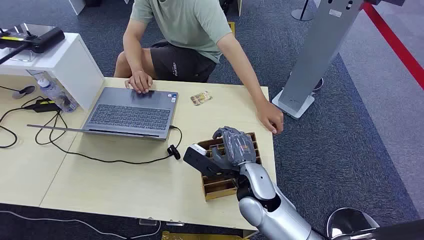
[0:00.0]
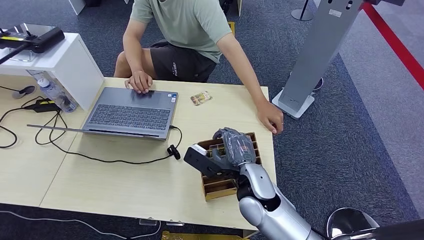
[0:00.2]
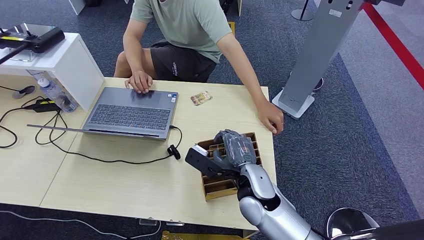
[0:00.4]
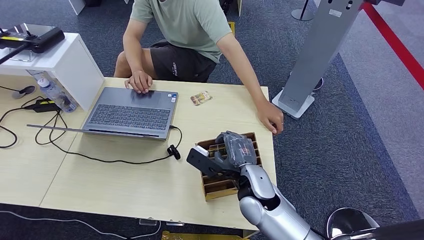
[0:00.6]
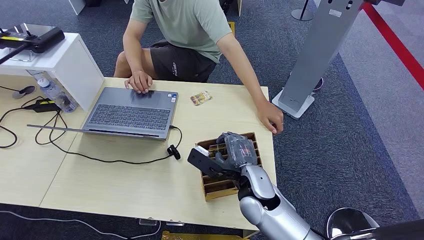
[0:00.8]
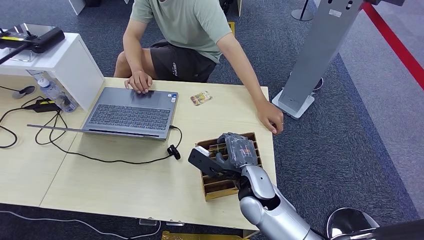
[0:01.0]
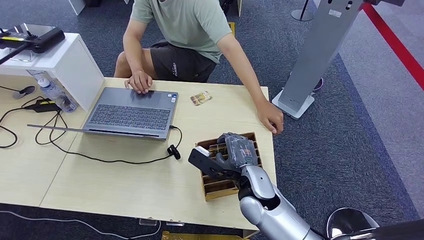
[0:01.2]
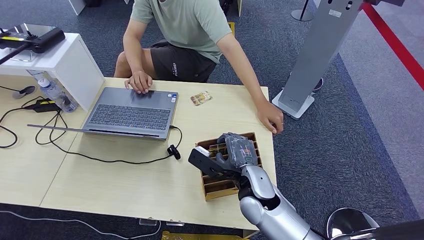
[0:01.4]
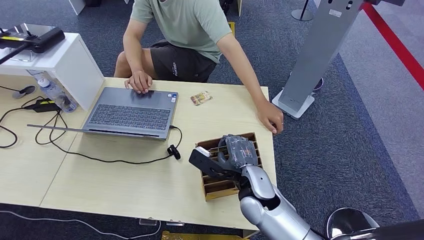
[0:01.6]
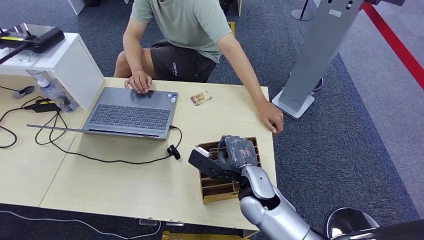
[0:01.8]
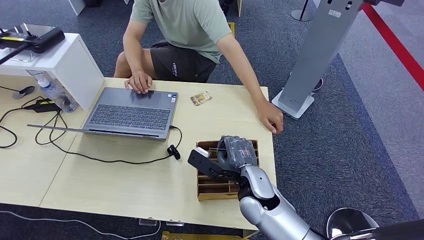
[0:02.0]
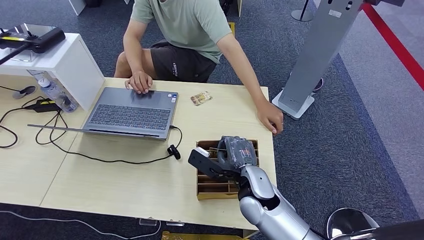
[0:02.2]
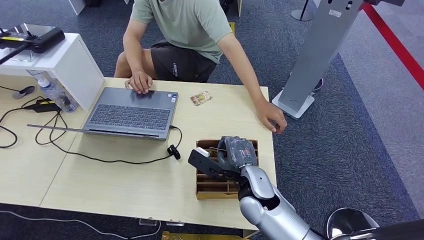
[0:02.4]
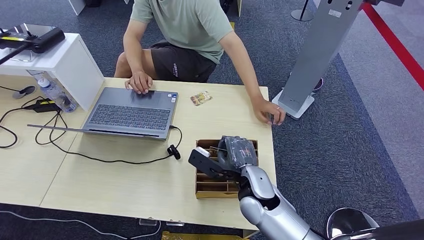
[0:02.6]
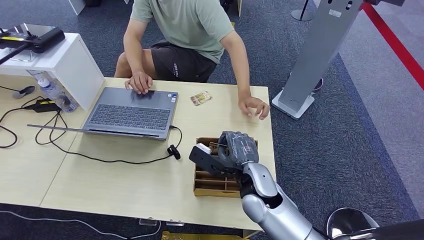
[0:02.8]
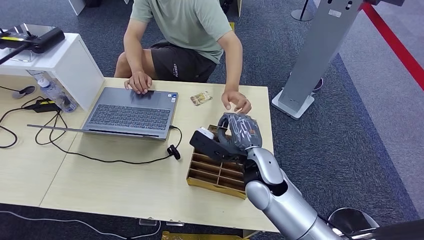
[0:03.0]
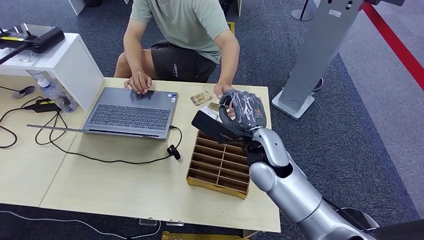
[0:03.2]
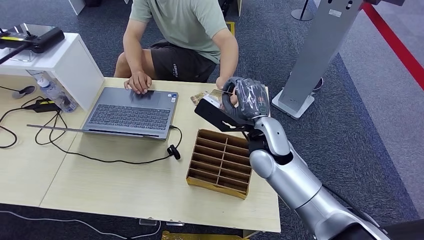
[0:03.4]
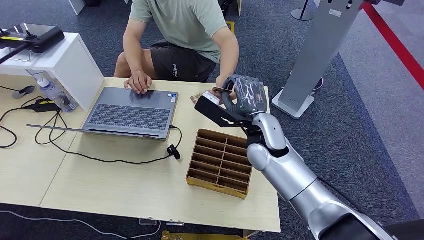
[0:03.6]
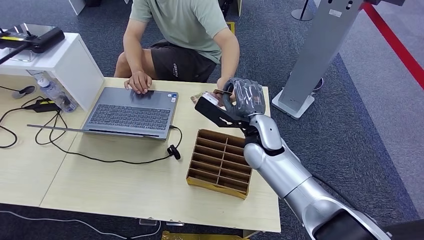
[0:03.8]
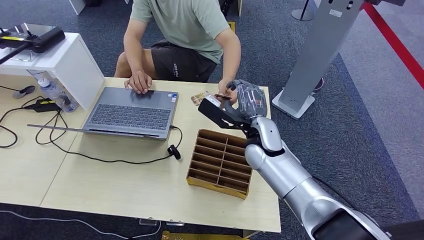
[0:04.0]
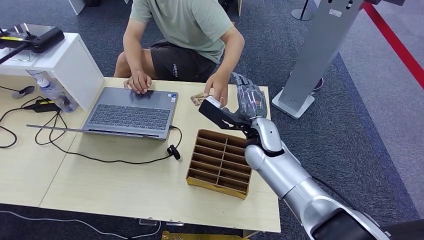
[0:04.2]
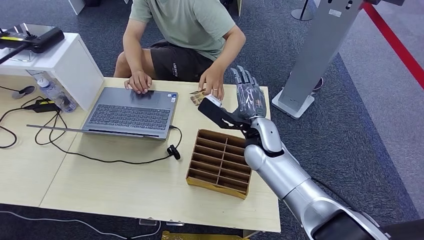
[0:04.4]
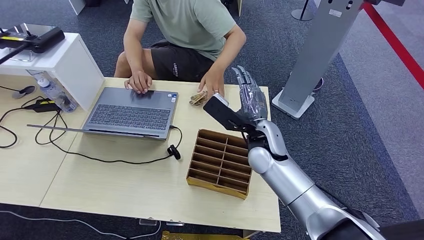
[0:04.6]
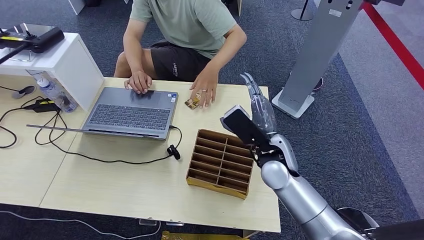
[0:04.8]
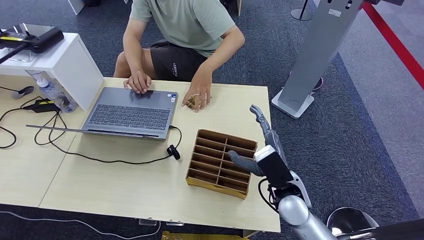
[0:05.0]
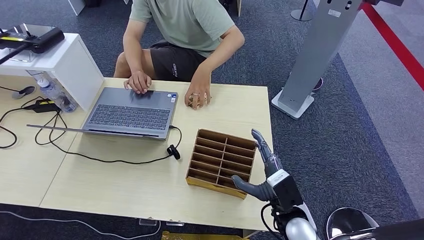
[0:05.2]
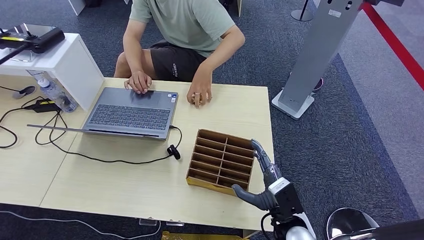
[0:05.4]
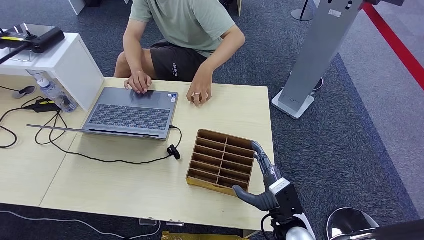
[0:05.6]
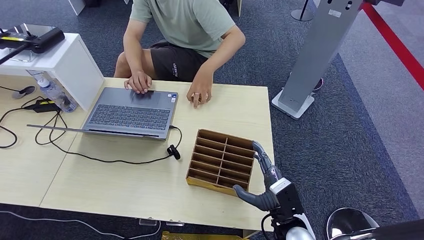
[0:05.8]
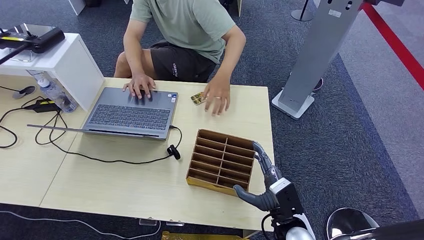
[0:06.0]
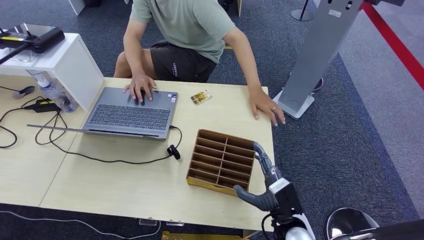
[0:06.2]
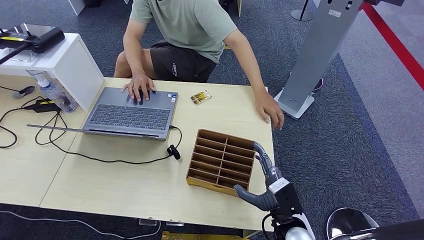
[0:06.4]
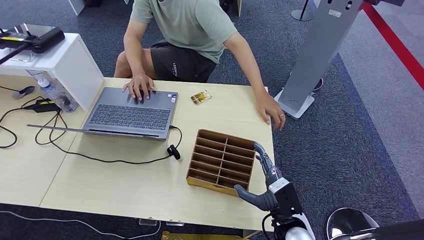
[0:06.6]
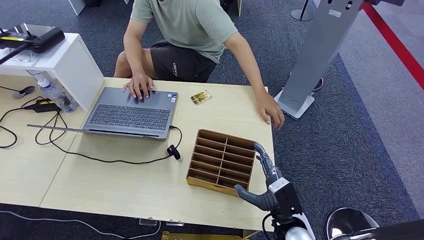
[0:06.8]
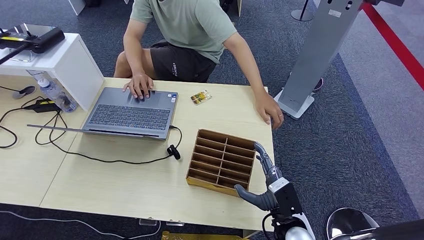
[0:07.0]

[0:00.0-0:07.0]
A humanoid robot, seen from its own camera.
Task of the whole recording: Pick up the card and hand it over to the target person.
Step, 0:00.0 to 0:03.2: Pick up the key card from the card box.
Step, 0:03.4 to 0:07.0: Hand the key card to the target.
0:01.4 to 0:02.8: The right hand travels upward by some 10 cm.
0:02.8 to 0:04.2: The right hand goes roughly 5 cm forward.
0:04.2 to 0:05.6: The right hand goes roughly 25 cm backward, downward and to the right.
0:05.6 to 0:07.0: Both hands stay about where they are.
